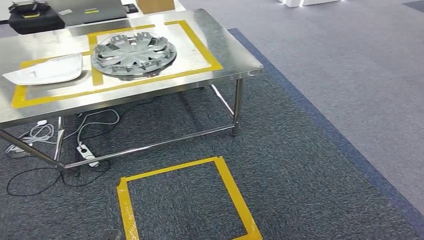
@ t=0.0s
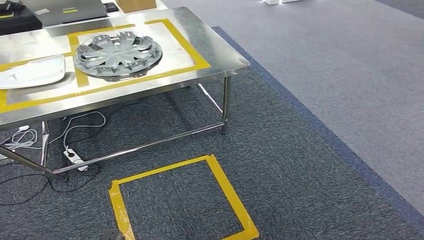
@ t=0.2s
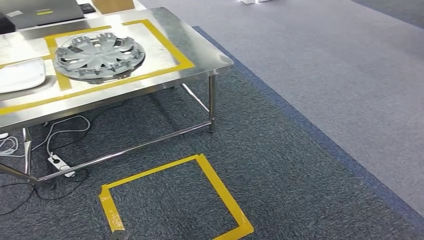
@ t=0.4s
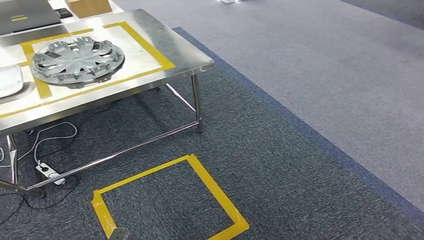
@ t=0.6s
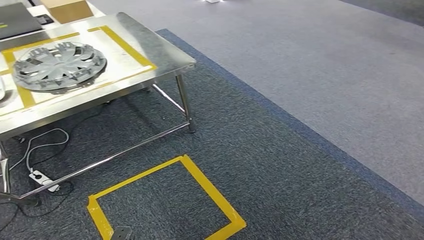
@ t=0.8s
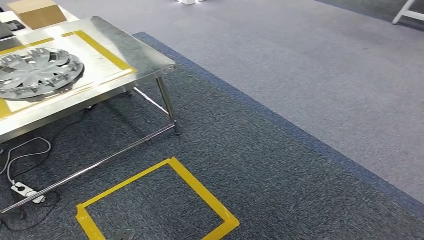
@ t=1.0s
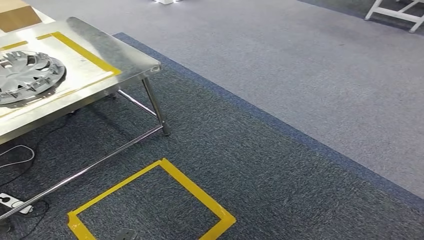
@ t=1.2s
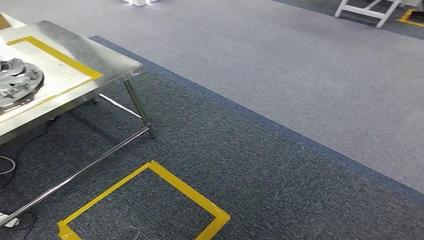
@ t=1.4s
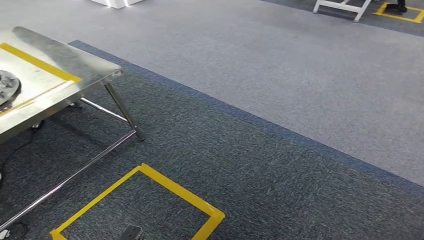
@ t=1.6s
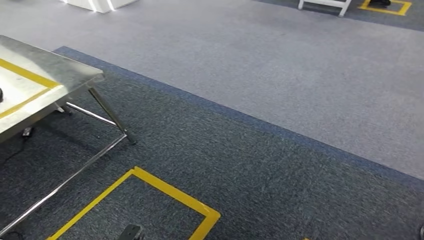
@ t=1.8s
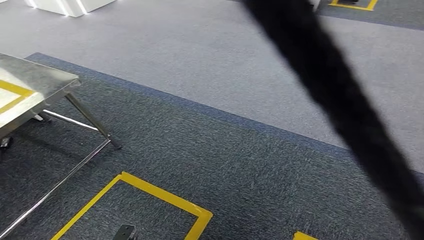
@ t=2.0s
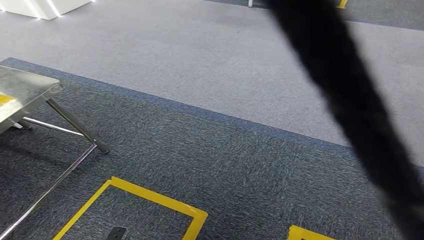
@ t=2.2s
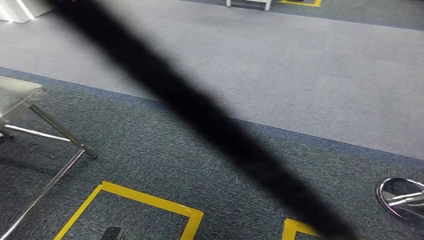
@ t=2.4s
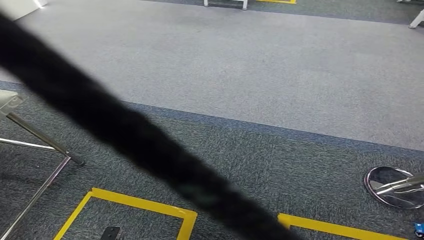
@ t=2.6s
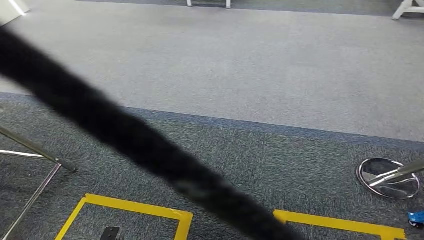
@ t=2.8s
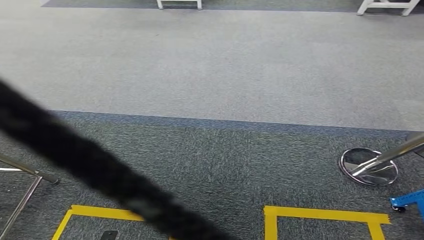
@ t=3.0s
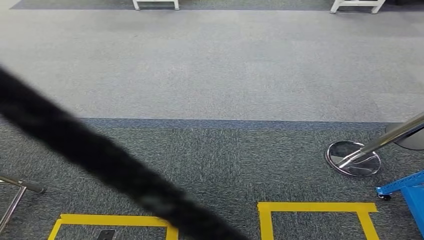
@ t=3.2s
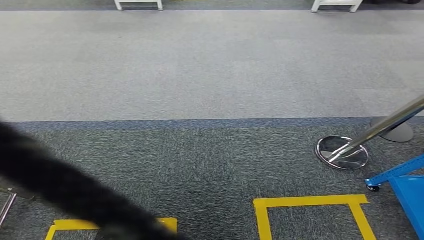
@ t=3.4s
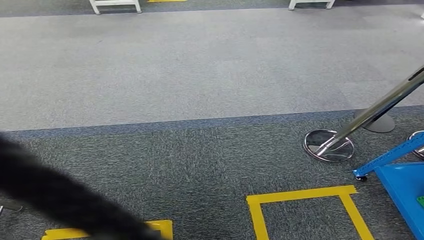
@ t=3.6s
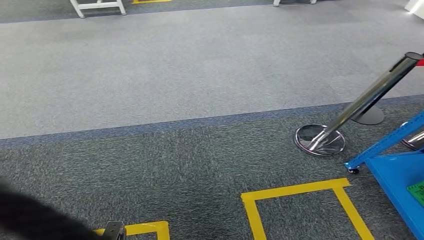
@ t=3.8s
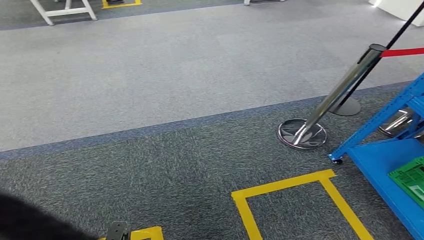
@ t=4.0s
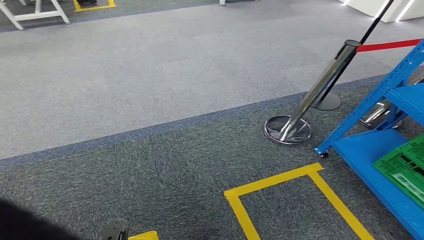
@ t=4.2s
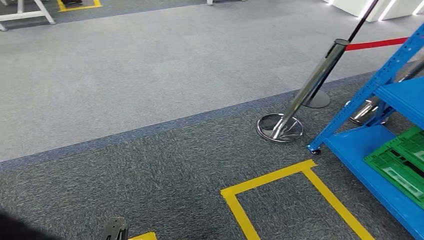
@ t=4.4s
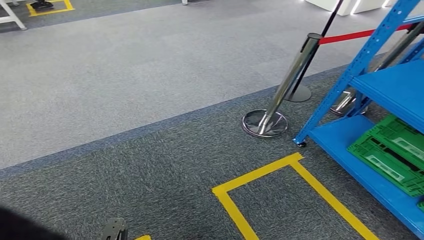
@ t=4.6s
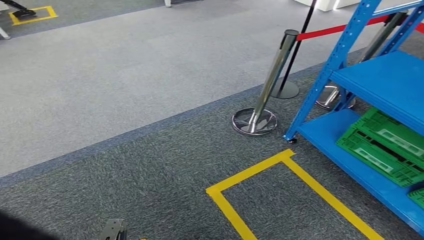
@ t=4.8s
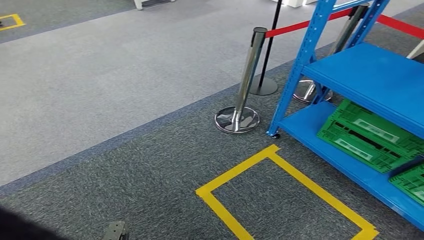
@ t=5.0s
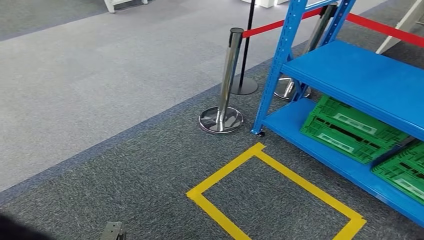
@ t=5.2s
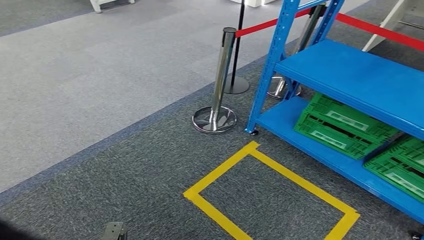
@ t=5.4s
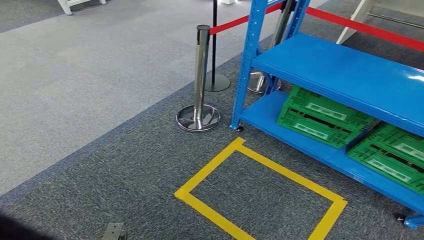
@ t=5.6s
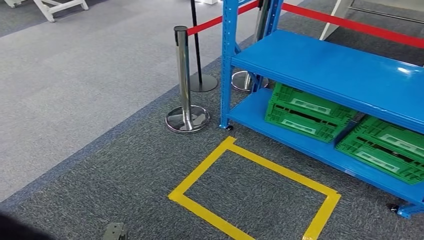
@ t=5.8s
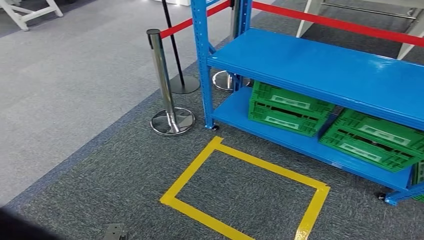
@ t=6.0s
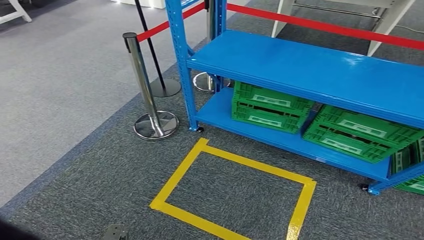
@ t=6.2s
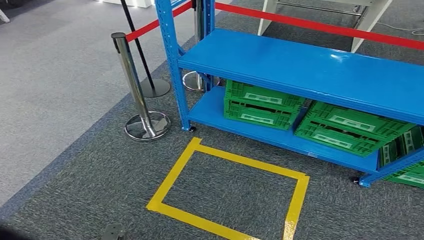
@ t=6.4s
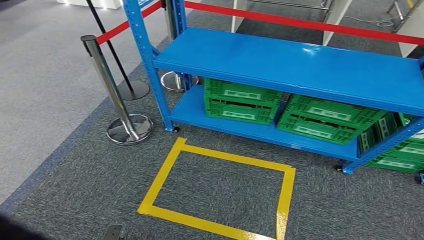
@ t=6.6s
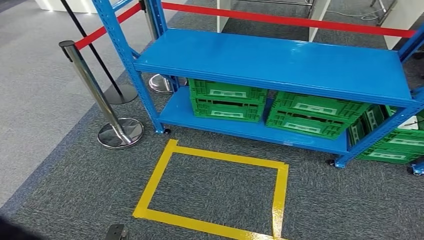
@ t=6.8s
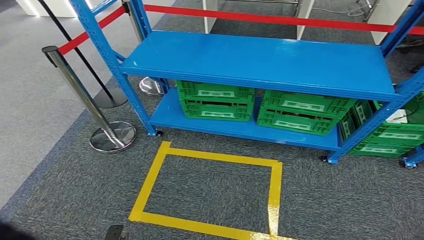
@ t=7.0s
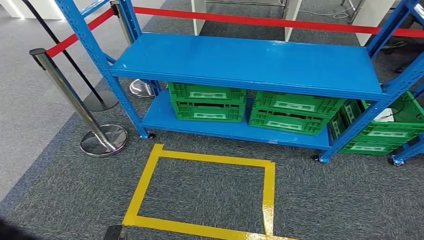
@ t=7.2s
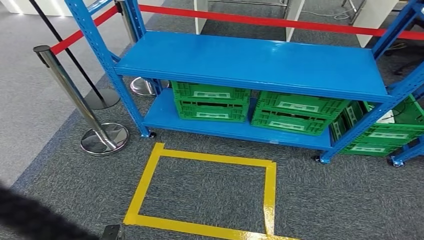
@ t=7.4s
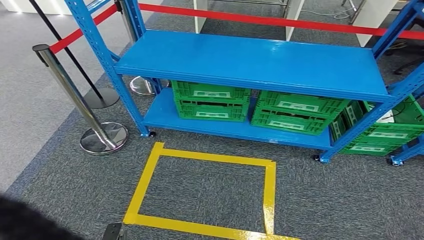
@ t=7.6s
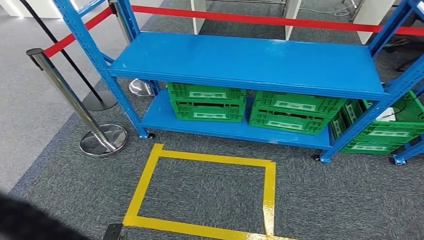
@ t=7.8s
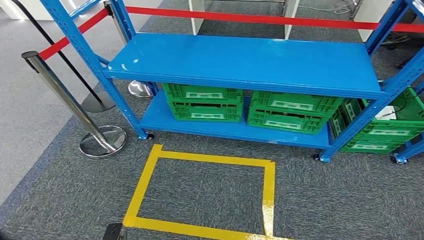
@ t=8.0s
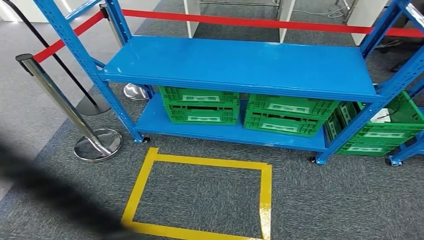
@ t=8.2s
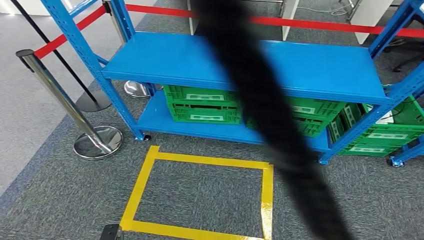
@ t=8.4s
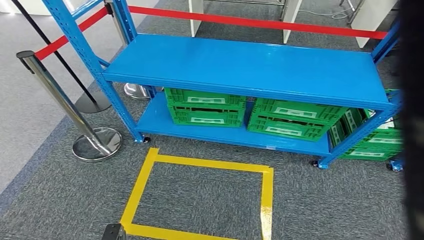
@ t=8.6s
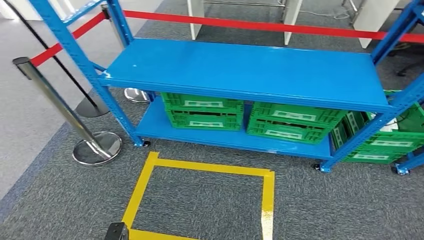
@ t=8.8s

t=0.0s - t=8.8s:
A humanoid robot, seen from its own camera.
Step, t=0.0s - t=8.8s: Return to the initial position at the workbench.
